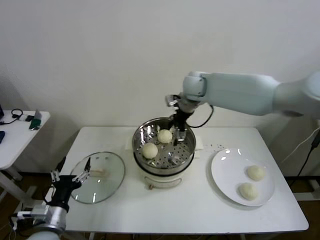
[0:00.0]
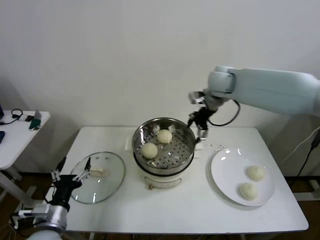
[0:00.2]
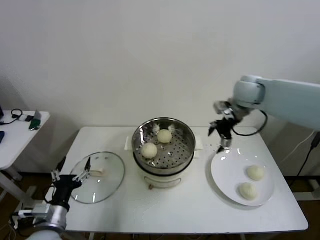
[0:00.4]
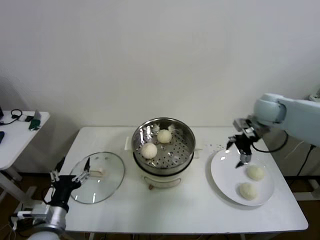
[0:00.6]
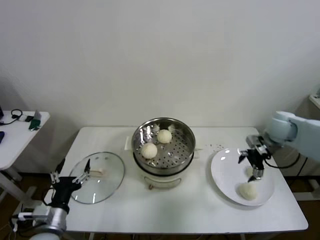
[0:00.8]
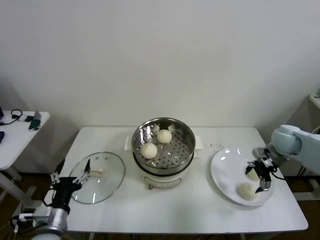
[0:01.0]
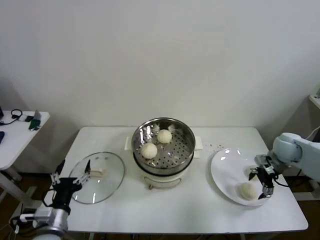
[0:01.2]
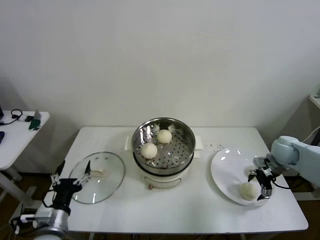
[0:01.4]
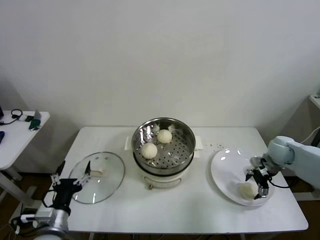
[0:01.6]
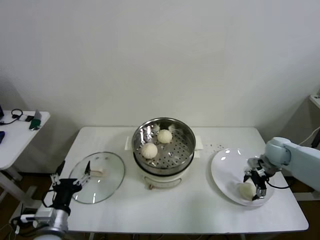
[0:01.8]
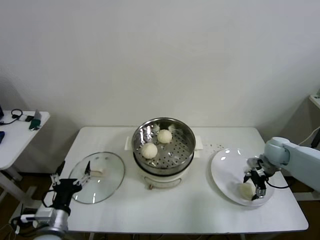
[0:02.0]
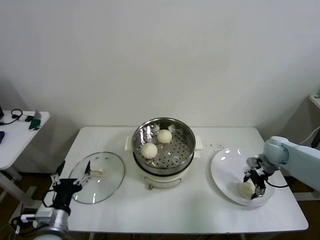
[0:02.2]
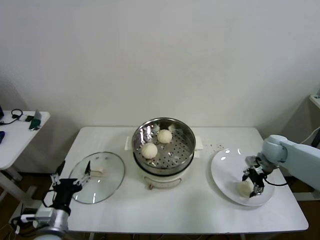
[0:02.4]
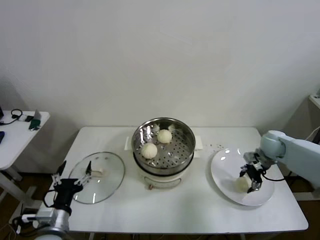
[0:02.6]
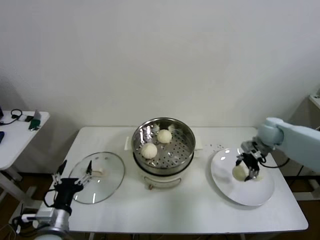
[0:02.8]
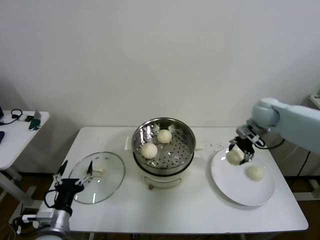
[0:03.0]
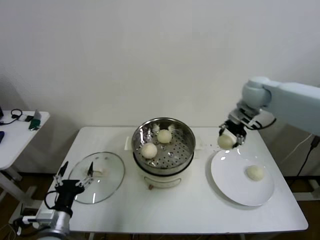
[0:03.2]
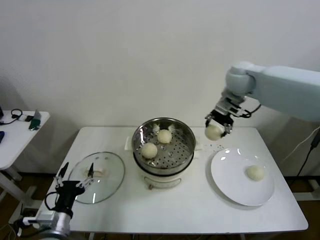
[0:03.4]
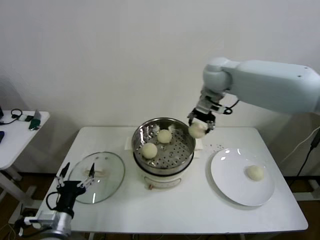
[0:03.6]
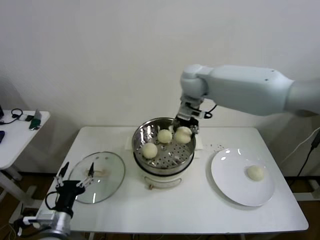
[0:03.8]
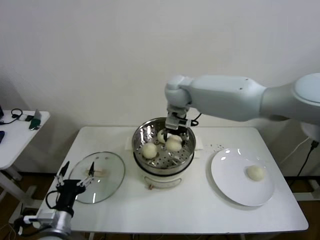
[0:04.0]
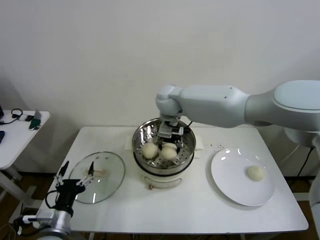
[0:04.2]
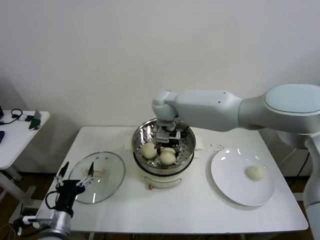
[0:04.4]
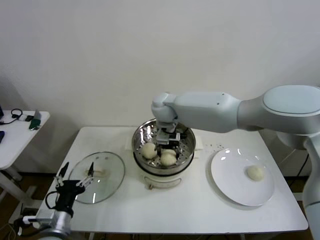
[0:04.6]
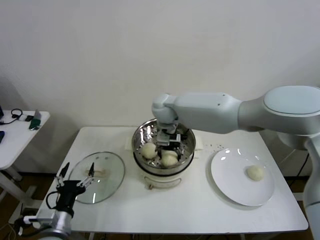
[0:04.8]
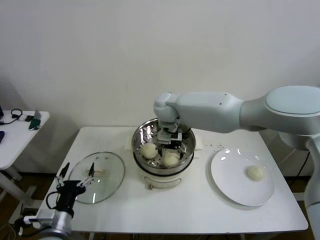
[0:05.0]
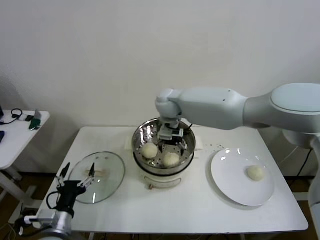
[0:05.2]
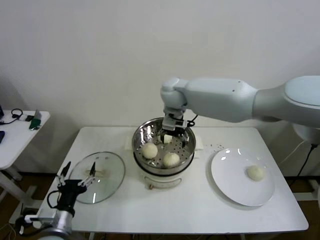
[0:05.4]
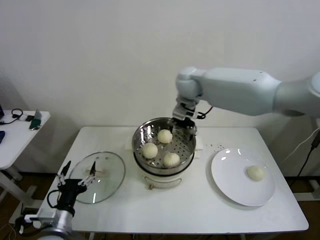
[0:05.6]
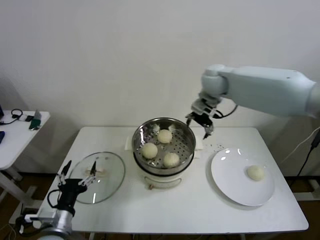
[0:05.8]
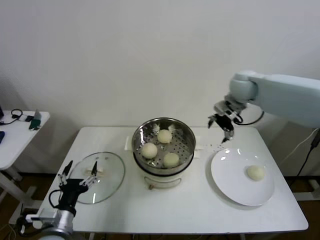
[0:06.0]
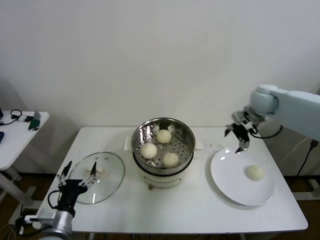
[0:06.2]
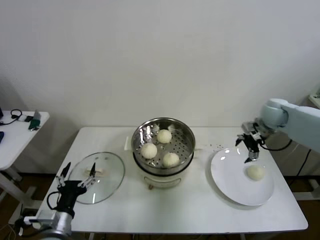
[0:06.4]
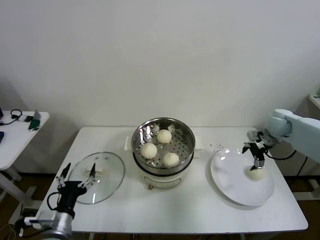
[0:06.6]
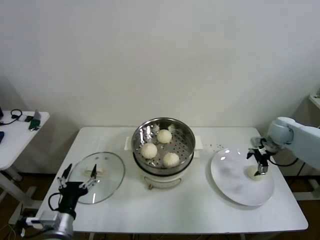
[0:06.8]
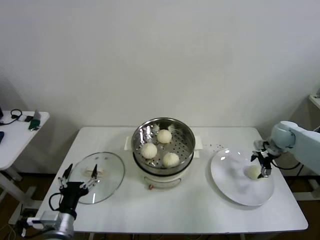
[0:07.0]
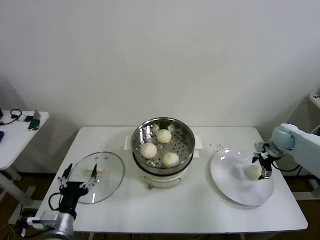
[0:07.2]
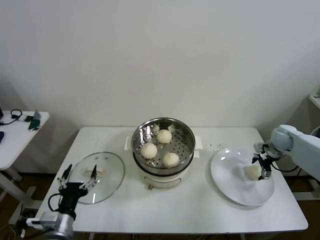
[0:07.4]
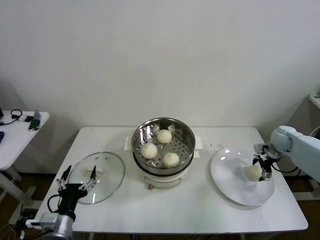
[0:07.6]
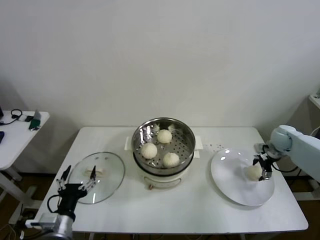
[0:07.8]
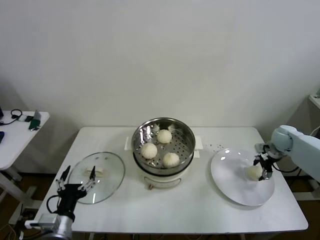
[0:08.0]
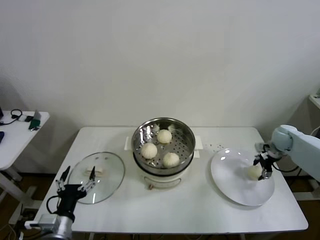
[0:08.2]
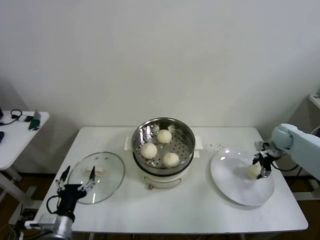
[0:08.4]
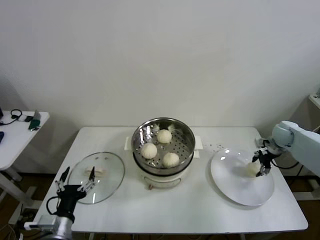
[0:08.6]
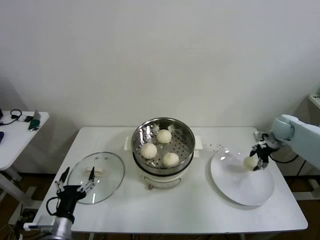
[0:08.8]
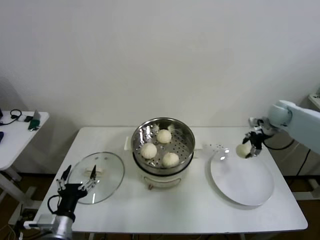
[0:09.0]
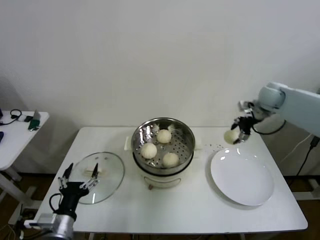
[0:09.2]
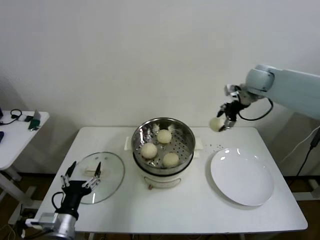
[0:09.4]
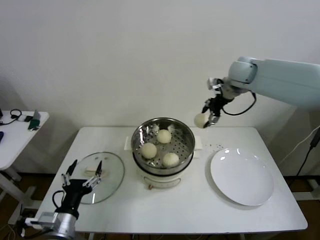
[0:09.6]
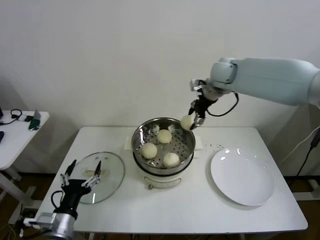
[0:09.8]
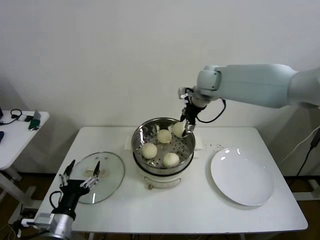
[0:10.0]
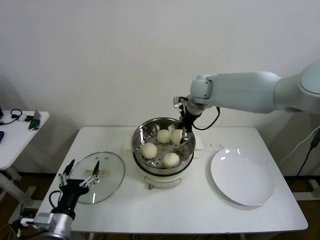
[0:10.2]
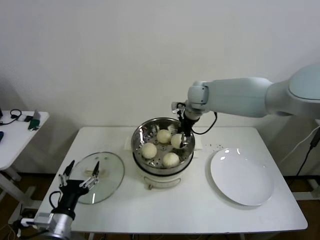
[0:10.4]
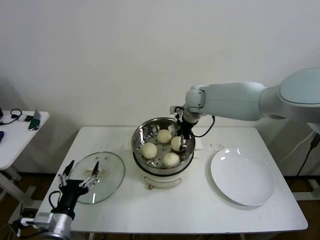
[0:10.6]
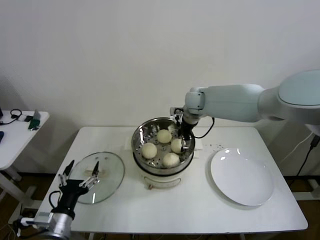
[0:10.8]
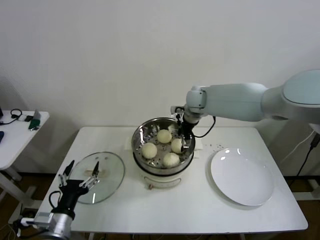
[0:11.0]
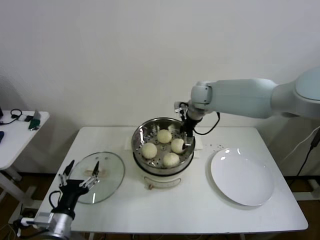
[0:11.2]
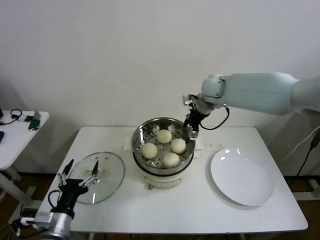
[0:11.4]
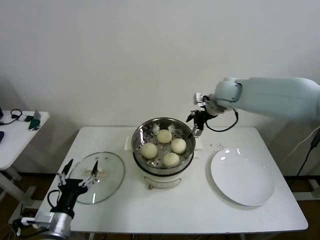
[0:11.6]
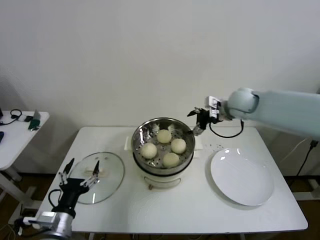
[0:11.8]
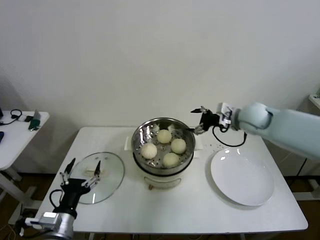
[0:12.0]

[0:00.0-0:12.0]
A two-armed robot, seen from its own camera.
Step, 0:00.0 to 0:02.2: Grasp the baozi in the plate with right gripper.
Step, 0:02.4 to 0:04.8: Place the baozi on the steamer with right gripper.
Step, 0:05.2 to 0:08.0: Grasp the baozi in the plate with right gripper.
Step, 0:08.2 to 0:10.8: Place the baozi on the steamer with right gripper.
0:00.0 to 0:01.6: The right gripper heads to the right, downward and backward, covering about 40 cm.
0:01.6 to 0:03.0: The right gripper moves upward, to the left and forward, some 20 cm, and closes up.
0:03.0 to 0:04.4: The right gripper travels to the left by approximately 35 cm.
0:04.4 to 0:06.0: The right gripper shifts about 25 cm to the right, and opens.
0:06.0 to 0:07.6: The right gripper goes some 30 cm downward and to the right.
0:07.6 to 0:09.0: The right gripper heads upward, covering approximately 10 cm, and closes.
0:09.0 to 0:10.4: The right gripper moves to the left, approximately 30 cm.
0:10.4 to 0:12.0: The right gripper heads to the right and backward, covering roughly 20 cm, and opens its fingers.

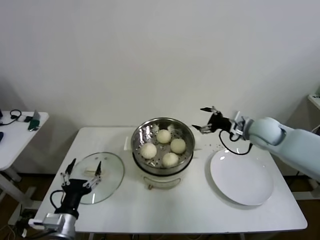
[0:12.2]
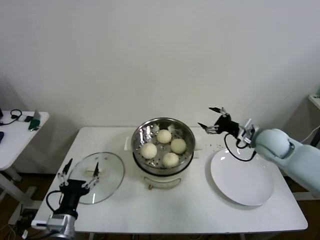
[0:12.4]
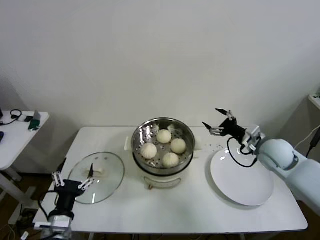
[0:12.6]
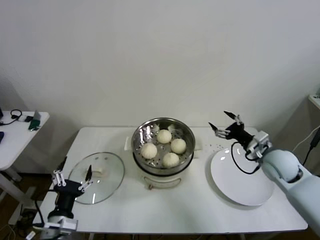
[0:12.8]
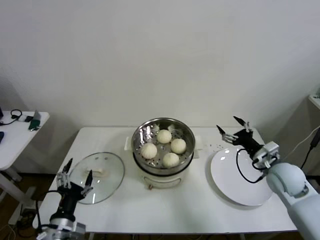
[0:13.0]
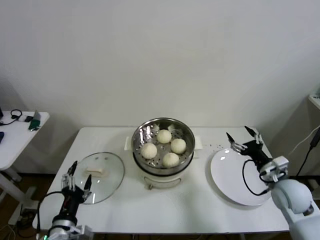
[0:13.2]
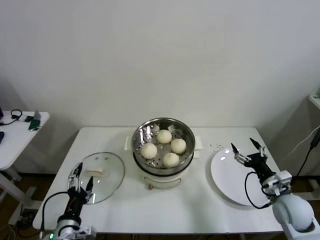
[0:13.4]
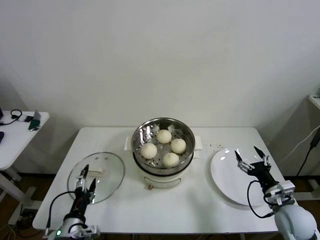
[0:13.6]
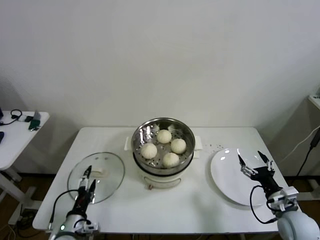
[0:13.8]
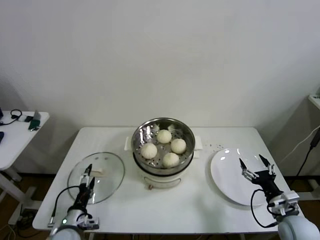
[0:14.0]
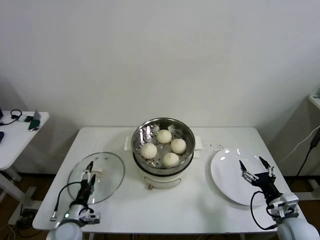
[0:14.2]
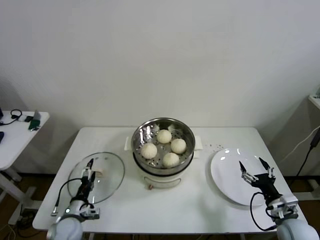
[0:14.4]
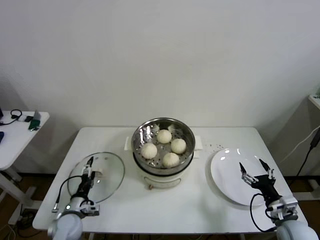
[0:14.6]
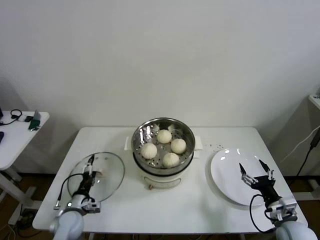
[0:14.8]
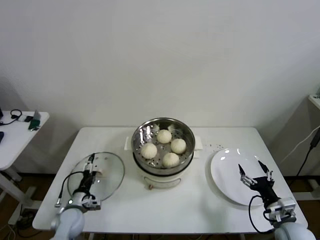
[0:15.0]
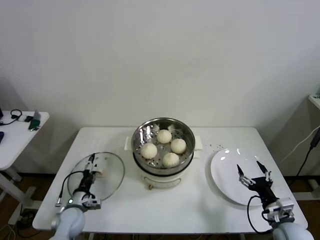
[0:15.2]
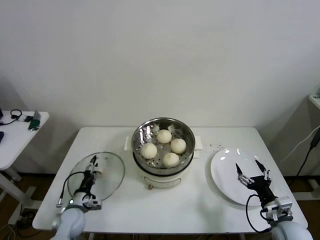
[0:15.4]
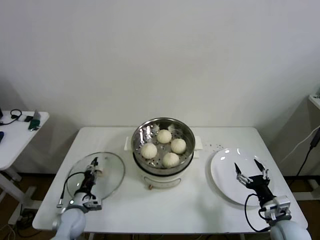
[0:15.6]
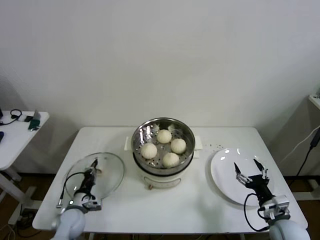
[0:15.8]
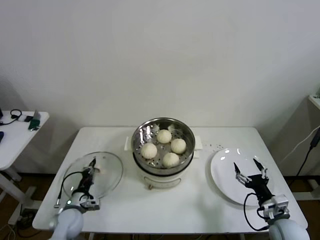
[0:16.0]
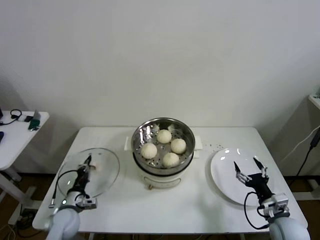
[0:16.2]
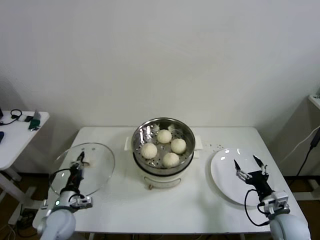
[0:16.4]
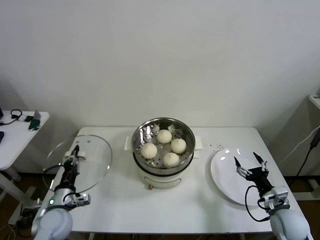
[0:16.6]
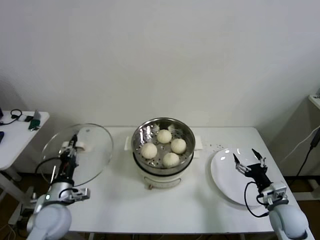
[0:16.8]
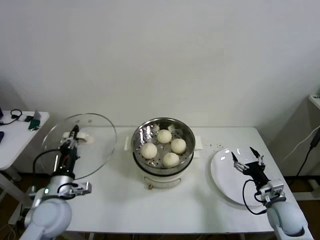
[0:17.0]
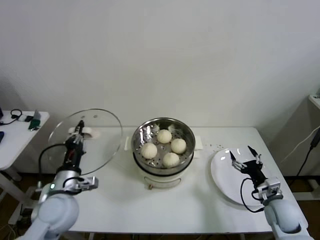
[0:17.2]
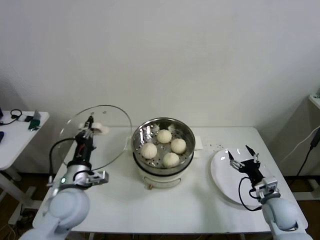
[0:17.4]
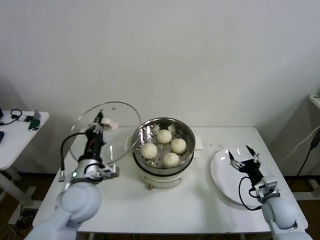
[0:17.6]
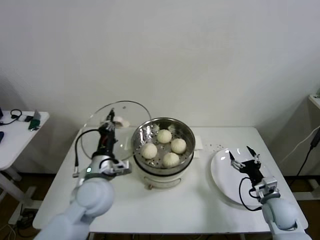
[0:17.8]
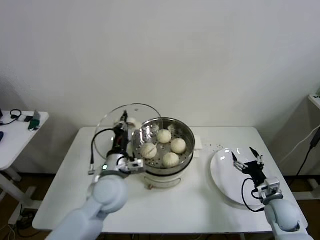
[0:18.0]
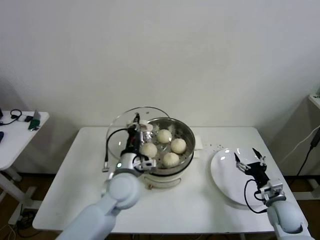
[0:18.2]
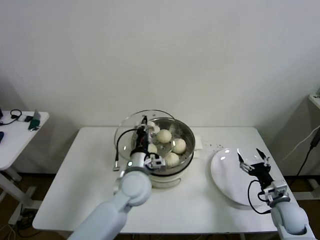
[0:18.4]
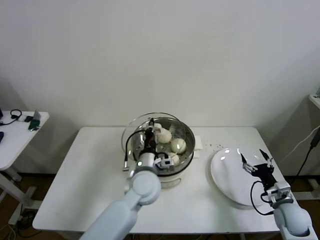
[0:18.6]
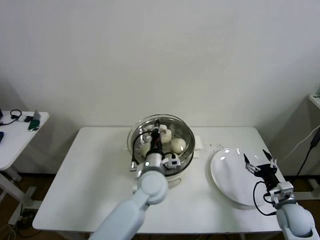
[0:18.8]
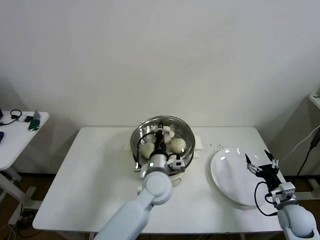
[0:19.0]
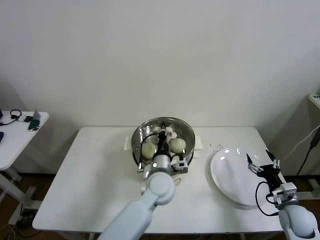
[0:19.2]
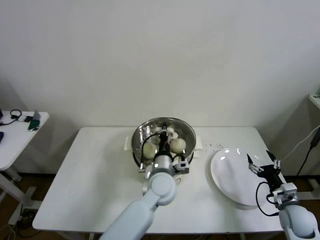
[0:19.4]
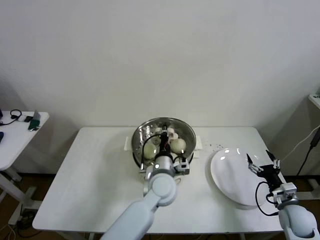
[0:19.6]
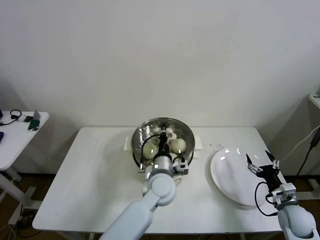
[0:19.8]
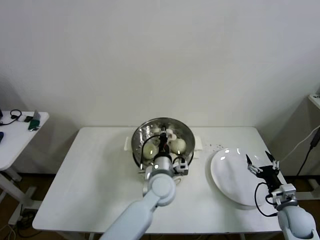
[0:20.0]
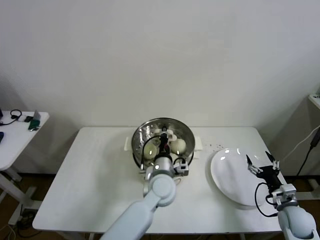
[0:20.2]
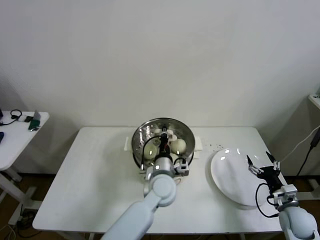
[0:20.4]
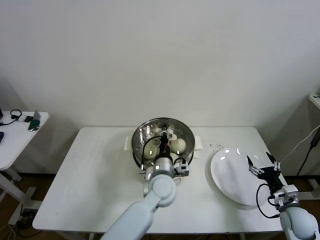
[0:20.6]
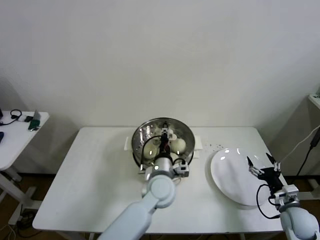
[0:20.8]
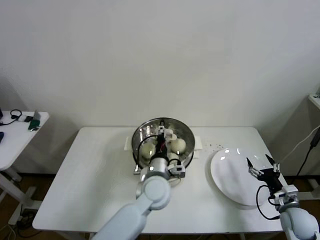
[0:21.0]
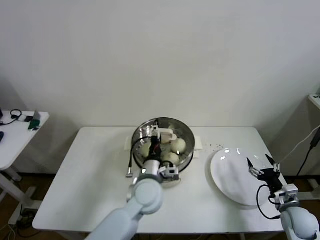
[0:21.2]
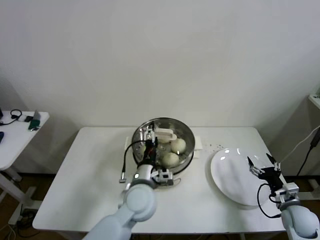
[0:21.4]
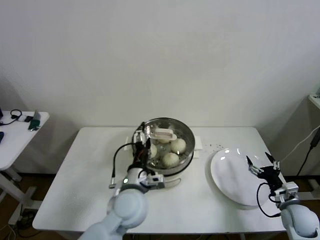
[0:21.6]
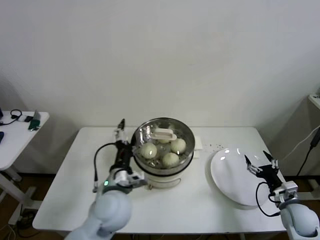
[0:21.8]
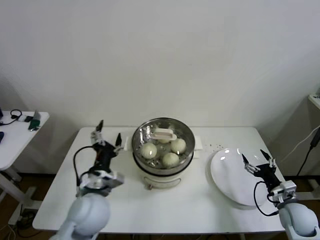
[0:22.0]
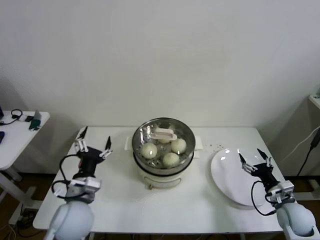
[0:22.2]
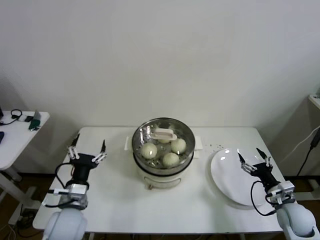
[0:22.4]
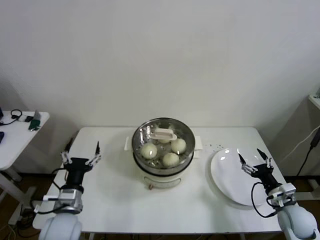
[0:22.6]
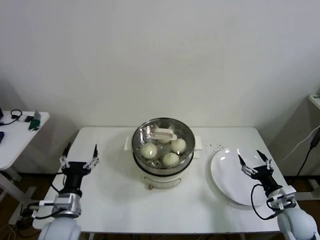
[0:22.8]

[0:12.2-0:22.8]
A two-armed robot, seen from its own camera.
Step, 0:12.2 to 0:15.8: Grasp the pot lid with left gripper.
Step, 0:16.0 to 0:20.6: Place the pot lid on the steamer with left gripper.
0:12.2 to 0:13.8: The right gripper moves backward and downward, some 30 cm. Meanwhile the left gripper goes about 10 cm downward.
0:13.8 to 0:15.2: The left gripper moves forward and downward, roughly 10 cm.
0:15.2 to 0:16.8: The left gripper goes roughly 15 cm upward, and closes up; the right gripper ends up roughly 5 cm from where it was.
0:16.8 to 0:18.2: The left gripper is displaced to the right by about 20 cm.
0:18.2 to 0:19.8: The left gripper moves to the right and downward, roughly 15 cm.
0:19.8 to 0:21.2: The left gripper opens up.
0:21.2 to 0:22.8: The left gripper moves to the left and backward, approximately 25 cm.
